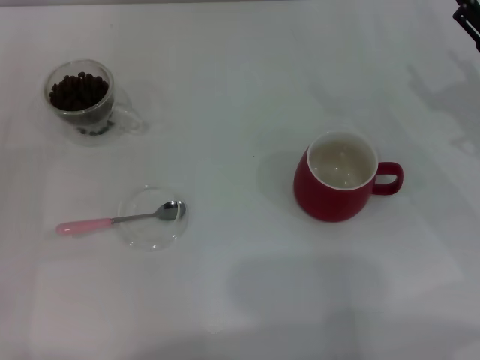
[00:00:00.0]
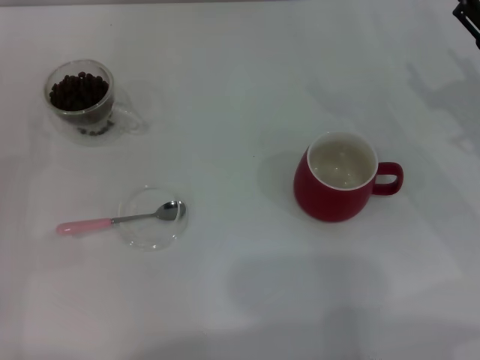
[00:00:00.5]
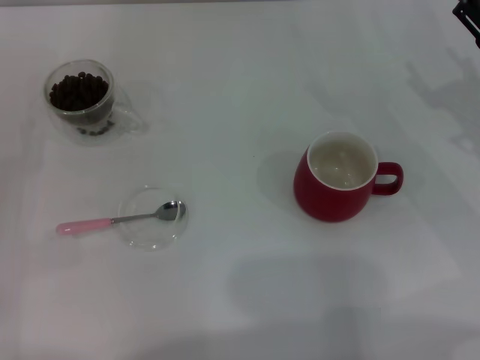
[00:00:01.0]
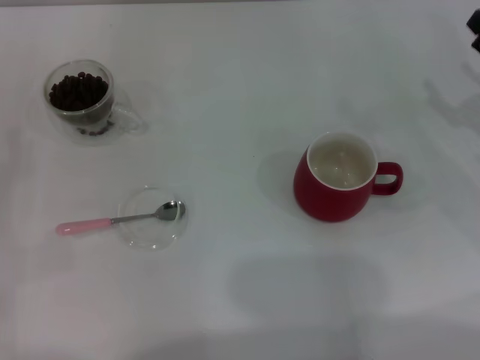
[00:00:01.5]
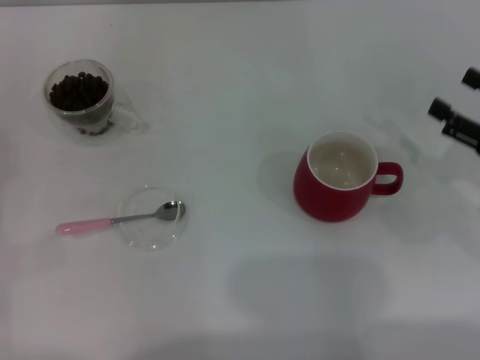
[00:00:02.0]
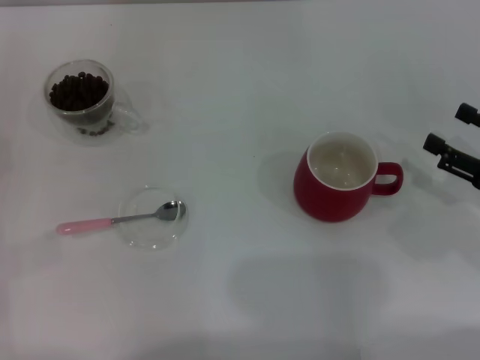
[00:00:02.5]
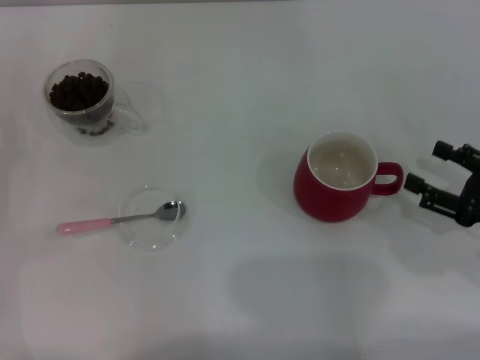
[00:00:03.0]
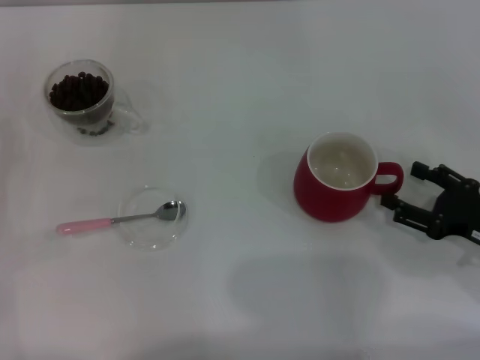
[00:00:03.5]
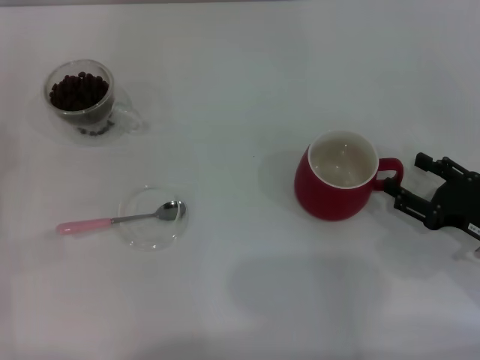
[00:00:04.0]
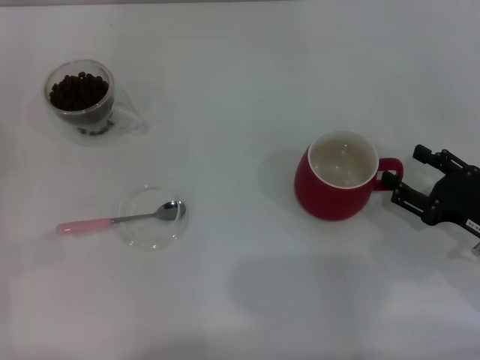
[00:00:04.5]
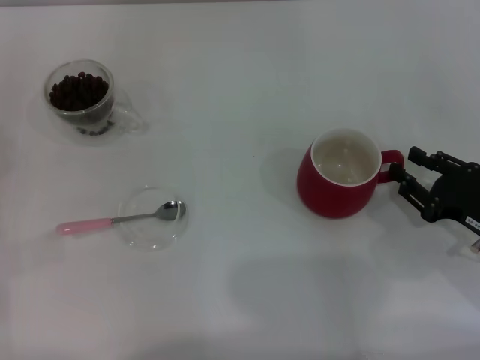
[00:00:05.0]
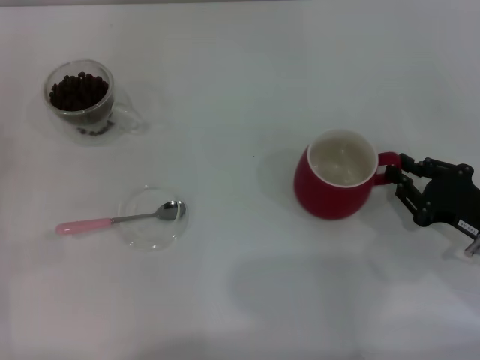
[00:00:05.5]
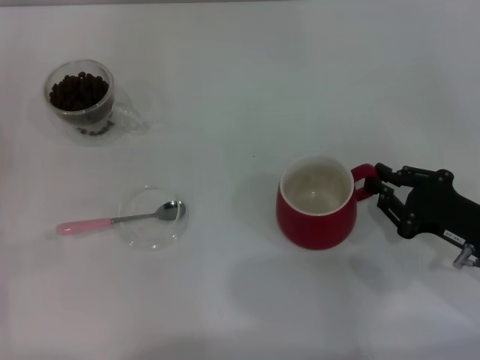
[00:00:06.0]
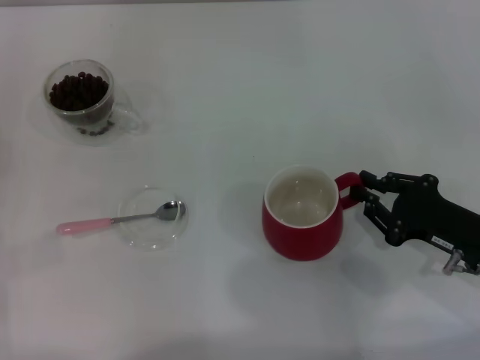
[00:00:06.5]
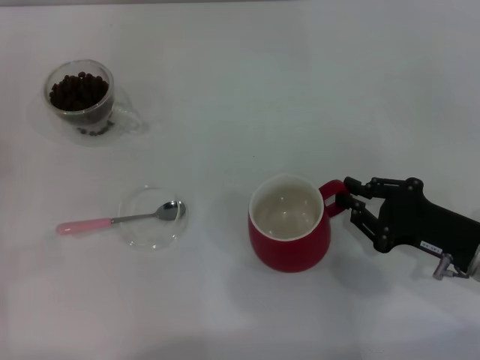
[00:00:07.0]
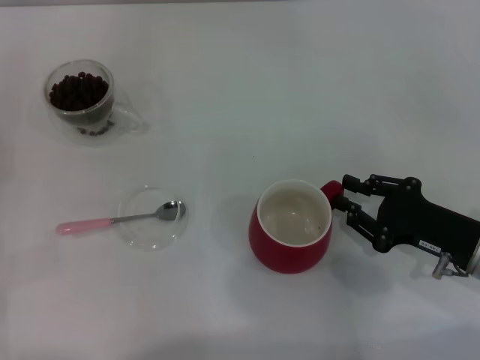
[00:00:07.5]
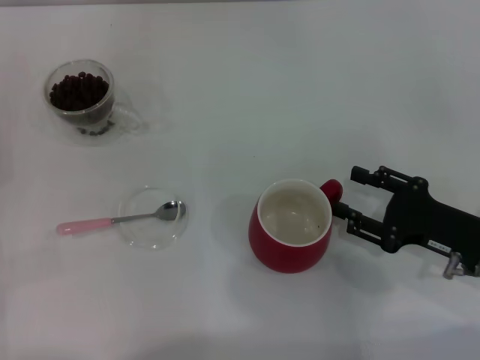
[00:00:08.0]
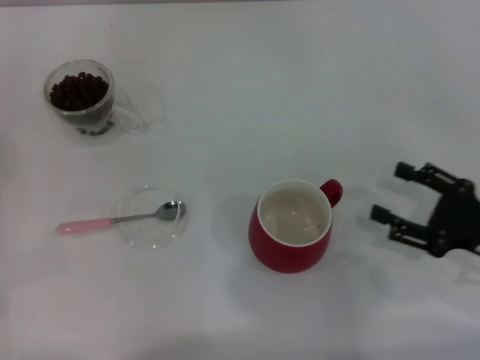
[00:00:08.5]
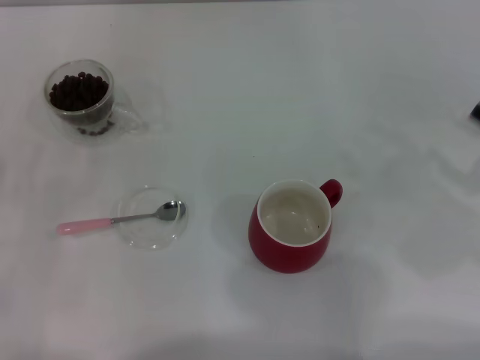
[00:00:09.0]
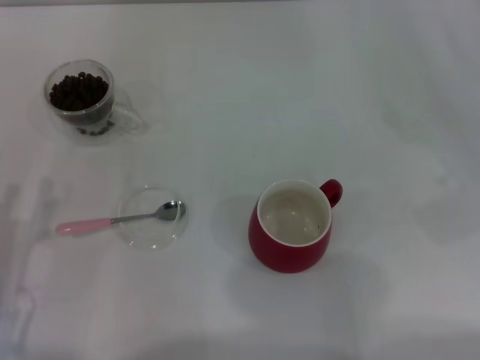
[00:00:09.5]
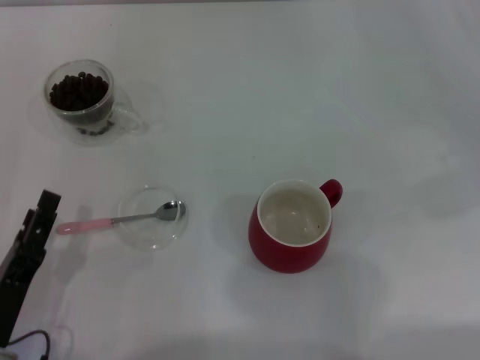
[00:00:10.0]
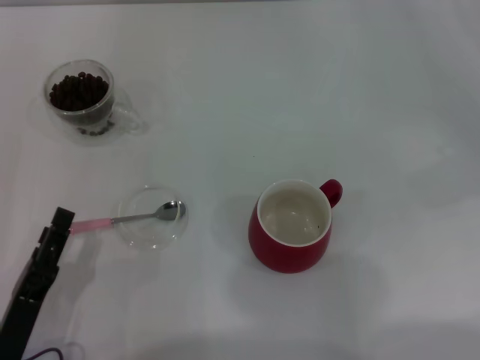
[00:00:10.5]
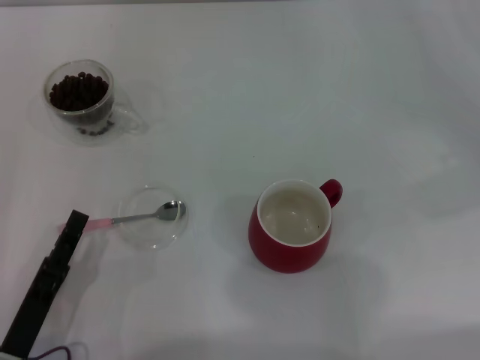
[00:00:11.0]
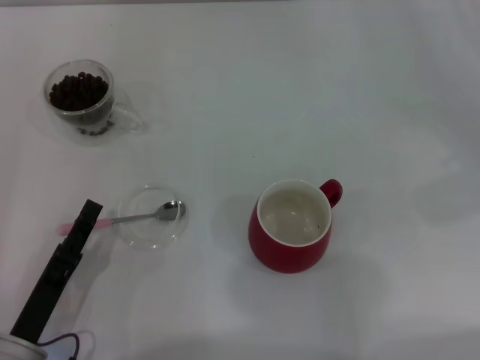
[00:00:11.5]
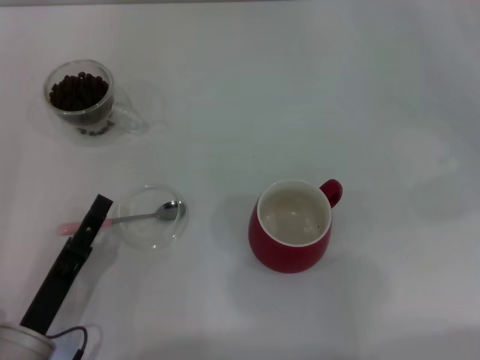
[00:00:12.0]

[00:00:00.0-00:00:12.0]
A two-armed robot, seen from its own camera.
Task of the whole recording: Use a pink spoon to take out the coffee beans from the glass and pour them into the red cup.
Step, 00:00:00.0 to 00:00:08.5: Move the cup to the center of view with the left gripper.
00:00:00.0 to 00:00:02.0: The right gripper moves backward, roughly 5 cm.
00:00:02.0 to 00:00:04.0: The right gripper moves downward, some 5 cm.
00:00:04.0 to 00:00:06.0: The right gripper closes.
00:00:06.0 to 00:00:08.0: The right gripper opens its fingers.
00:00:08.0 to 00:00:10.0: The right gripper travels to the right and upward by some 20 cm, and opens up; the left gripper goes roughly 15 cm to the right and backward.
00:00:10.0 to 00:00:12.0: The grippers stay close to where they were, moving slightly.

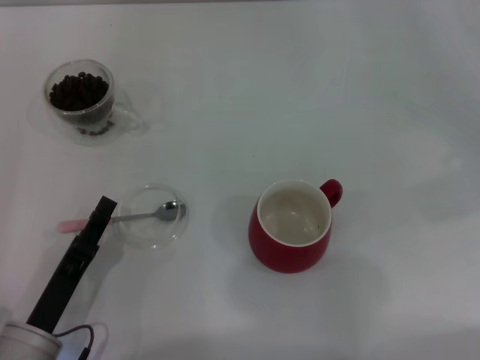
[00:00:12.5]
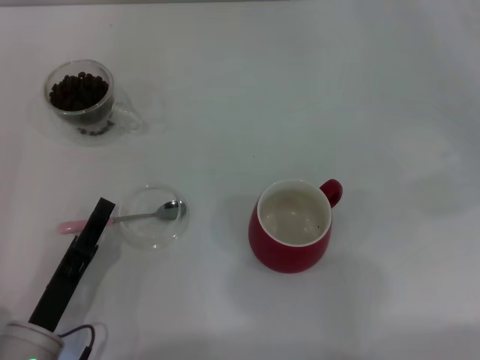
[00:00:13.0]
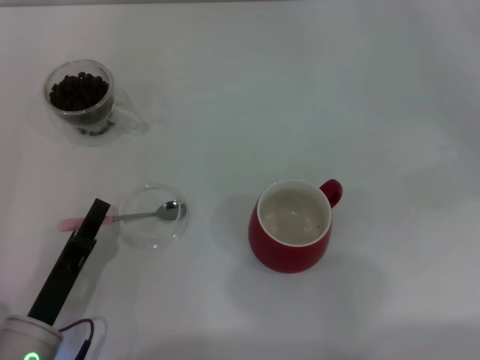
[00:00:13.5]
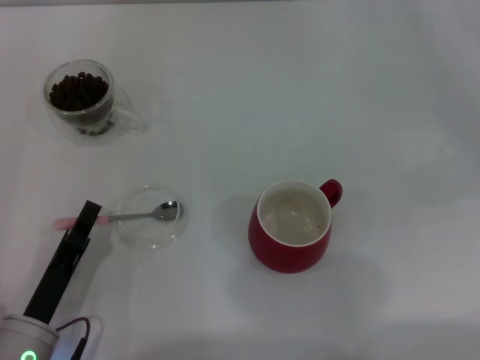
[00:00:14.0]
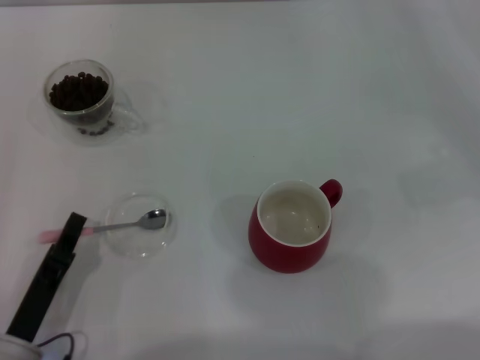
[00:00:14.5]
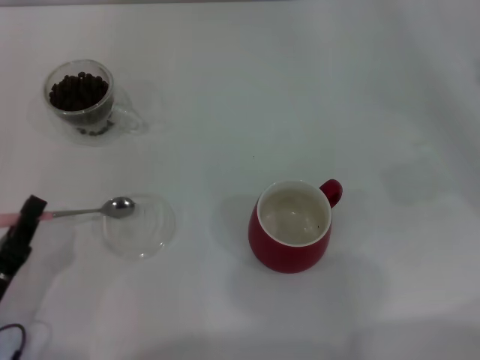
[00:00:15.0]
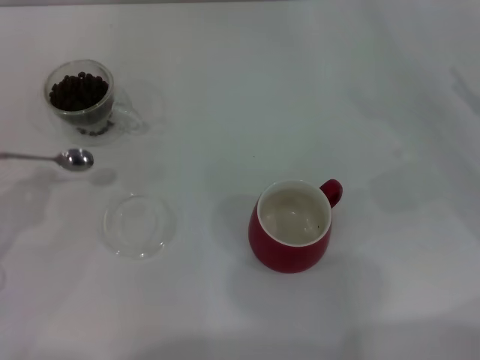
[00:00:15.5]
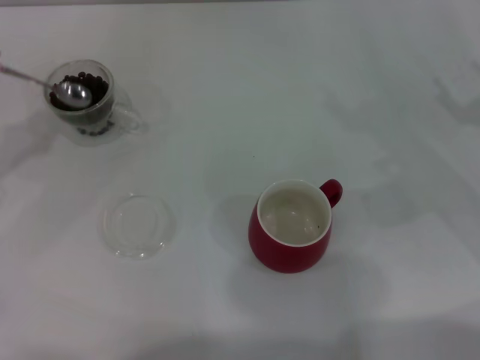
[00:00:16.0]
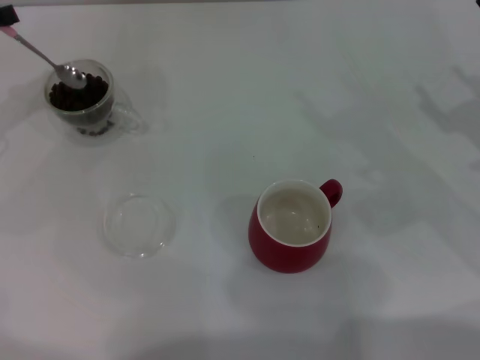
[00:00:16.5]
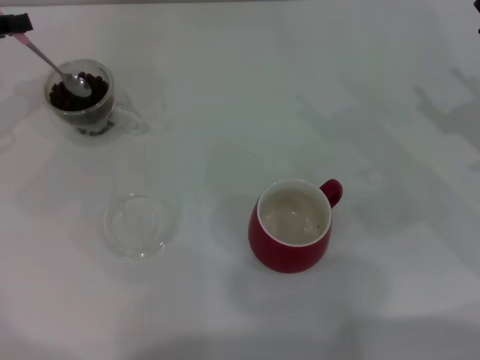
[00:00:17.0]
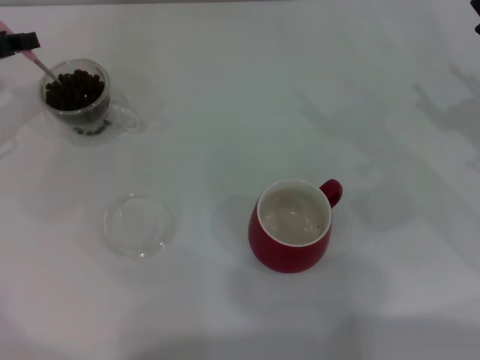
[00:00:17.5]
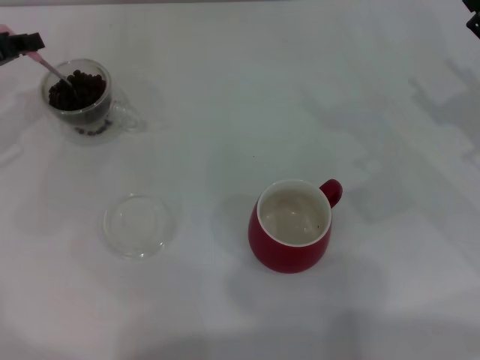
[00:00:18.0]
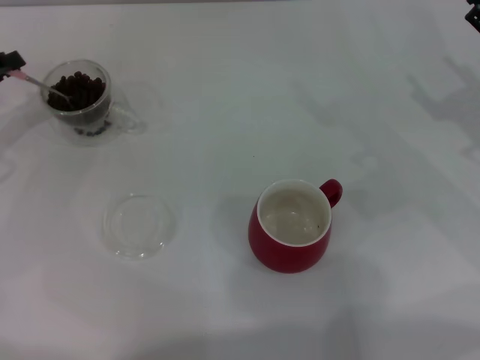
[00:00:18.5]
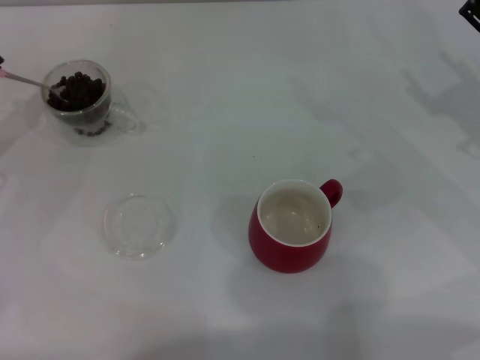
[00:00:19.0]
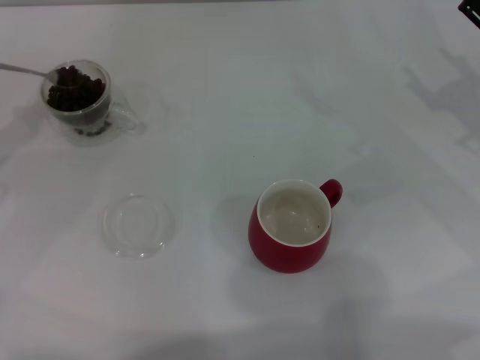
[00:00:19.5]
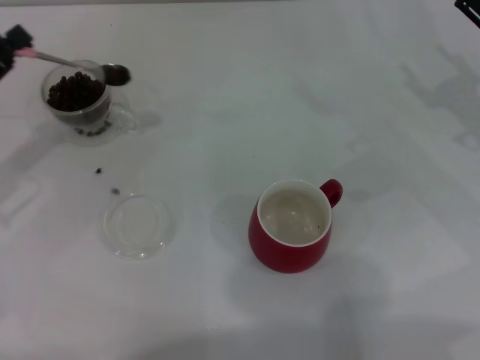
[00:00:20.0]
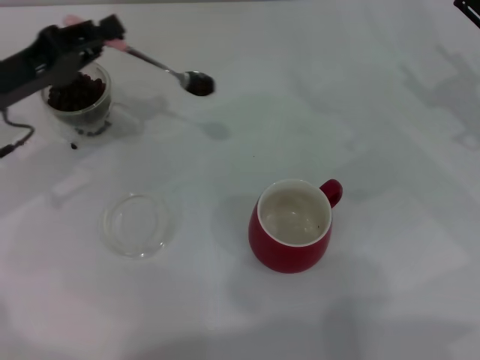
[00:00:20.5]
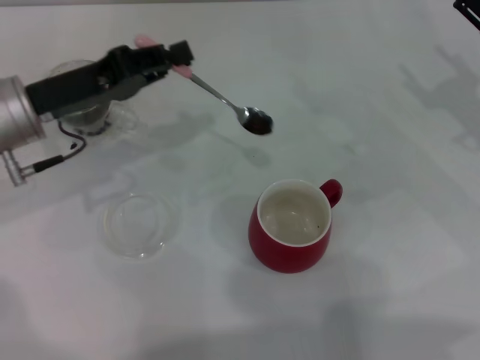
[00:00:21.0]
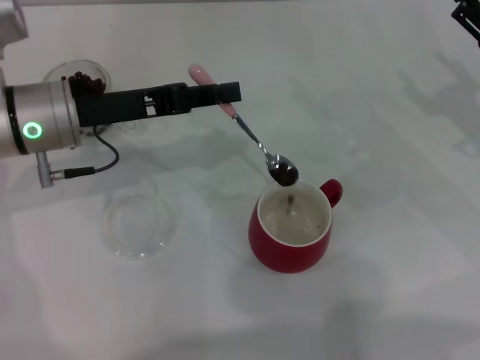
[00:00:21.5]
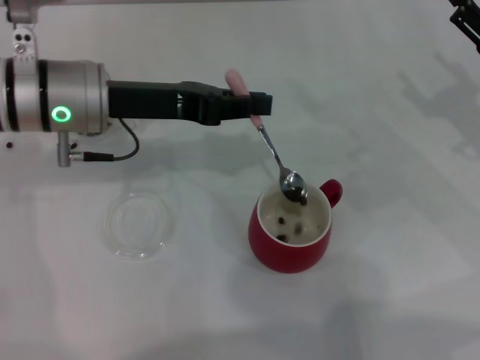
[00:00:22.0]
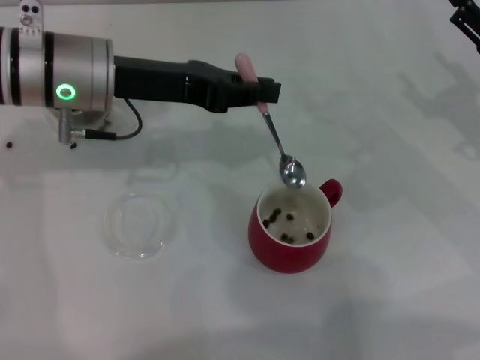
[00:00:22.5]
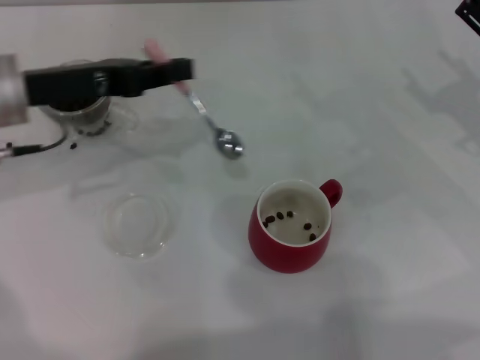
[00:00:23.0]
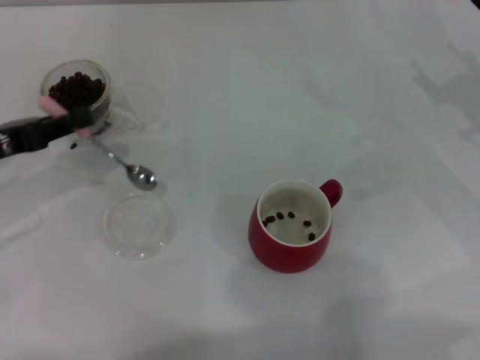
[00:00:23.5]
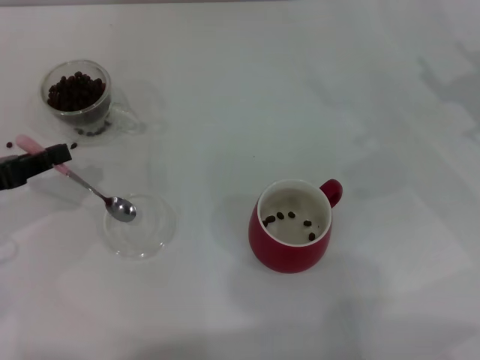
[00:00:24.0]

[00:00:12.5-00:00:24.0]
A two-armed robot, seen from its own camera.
Task of the whole recording: Use a pink spoon to take out the coffee beans from the glass and pour them into the red cup.
Step, 00:00:12.5 to 00:00:15.0: Pick up the spoon with the right gripper.
00:00:12.5 to 00:00:14.5: The left gripper closes up.
00:00:14.5 to 00:00:16.5: The left gripper is displaced forward, upward and to the left by roughly 30 cm.
00:00:16.5 to 00:00:18.5: The left gripper goes roughly 5 cm downward.
00:00:20.0 to 00:00:22.0: The left gripper is displaced to the right by roughly 15 cm.
00:00:22.0 to 00:00:24.0: The left gripper travels to the left and backward by approximately 20 cm.

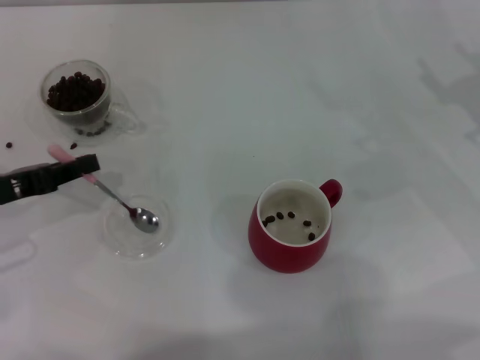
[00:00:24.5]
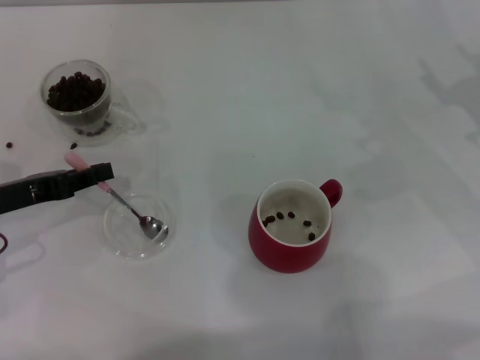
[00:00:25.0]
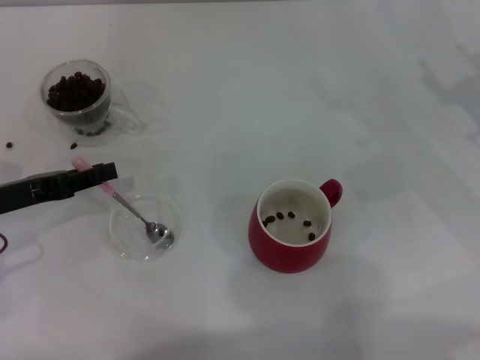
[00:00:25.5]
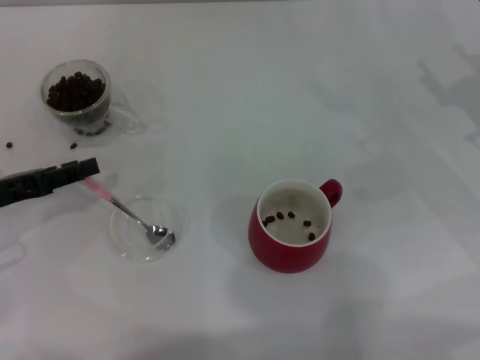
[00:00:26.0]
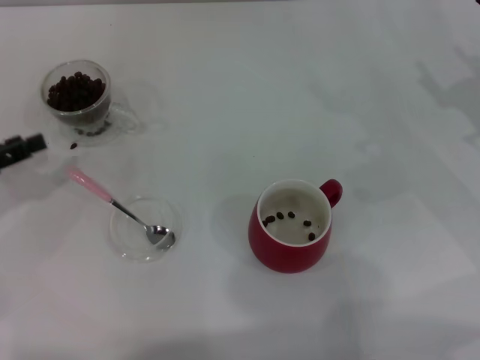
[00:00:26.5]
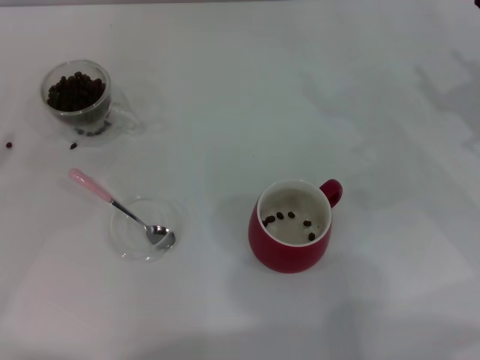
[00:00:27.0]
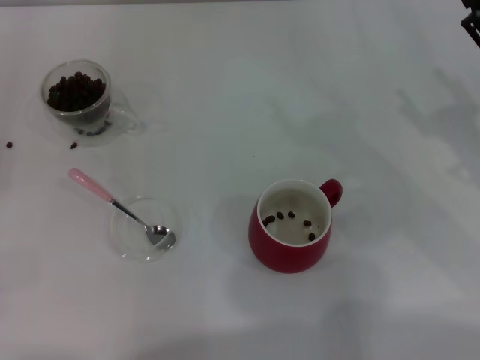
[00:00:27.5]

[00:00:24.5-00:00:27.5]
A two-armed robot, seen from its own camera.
Task of the whole recording: Use a pink spoon to take out the coffee beans from the glass and pour them into the red cup.
00:00:24.5 to 00:00:26.0: The left gripper opens.
00:00:26.0 to 00:00:27.5: The left gripper is displaced to the left and backward by some 15 cm.
